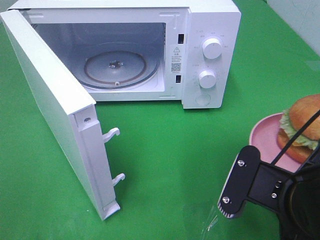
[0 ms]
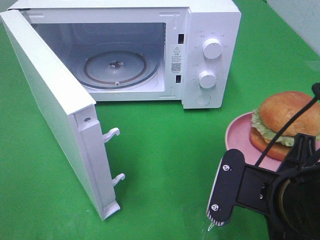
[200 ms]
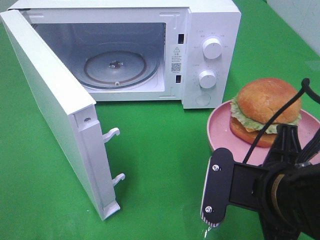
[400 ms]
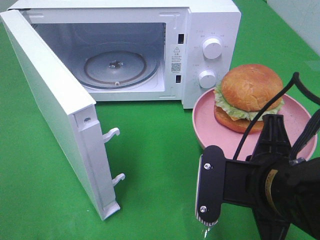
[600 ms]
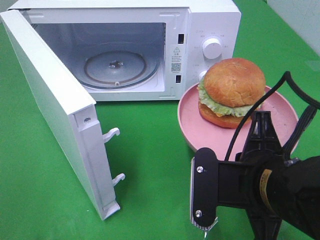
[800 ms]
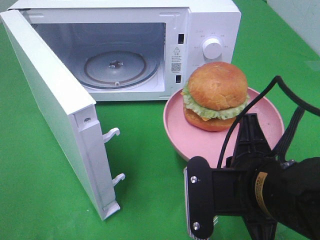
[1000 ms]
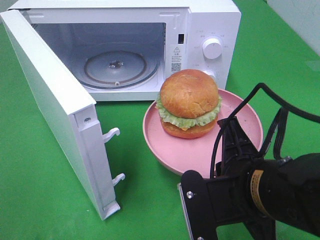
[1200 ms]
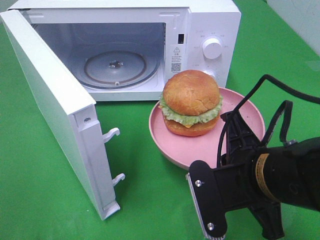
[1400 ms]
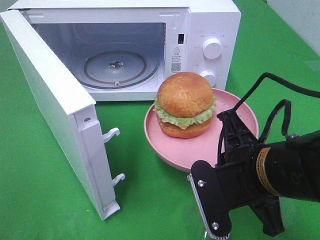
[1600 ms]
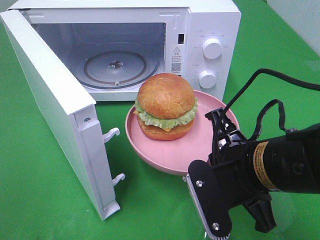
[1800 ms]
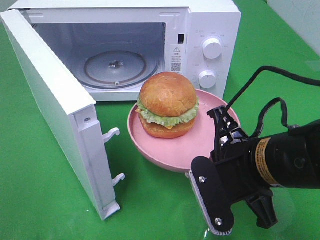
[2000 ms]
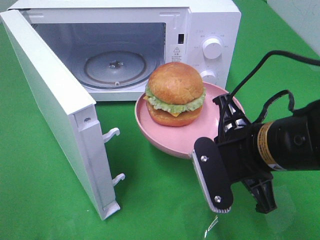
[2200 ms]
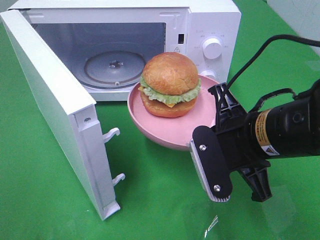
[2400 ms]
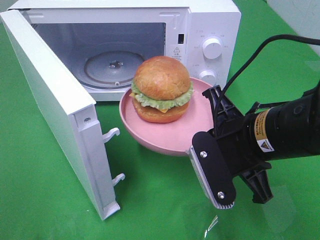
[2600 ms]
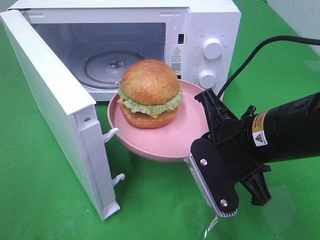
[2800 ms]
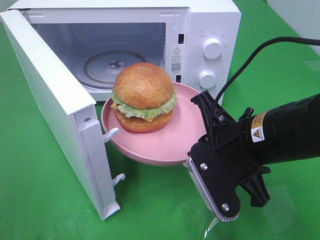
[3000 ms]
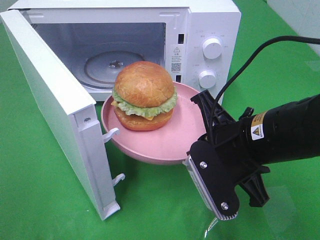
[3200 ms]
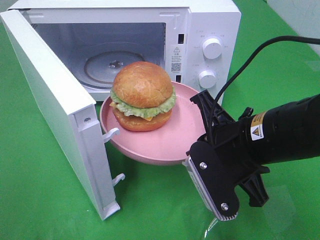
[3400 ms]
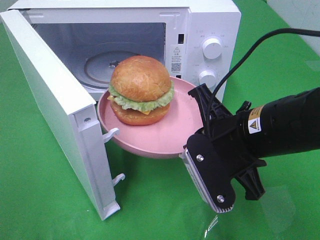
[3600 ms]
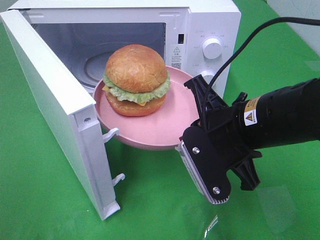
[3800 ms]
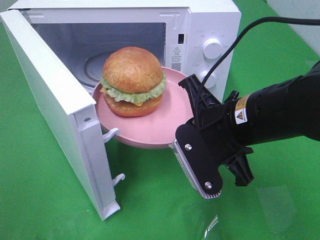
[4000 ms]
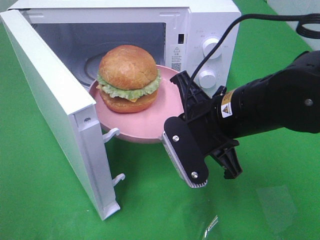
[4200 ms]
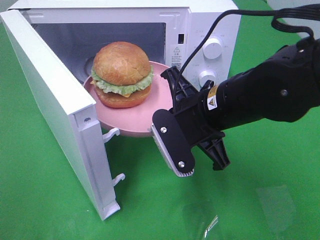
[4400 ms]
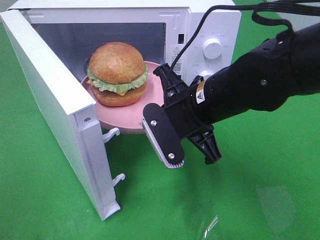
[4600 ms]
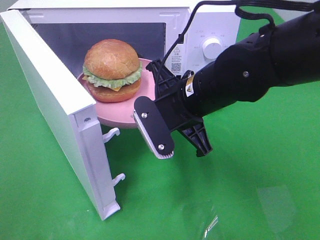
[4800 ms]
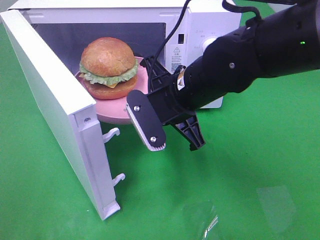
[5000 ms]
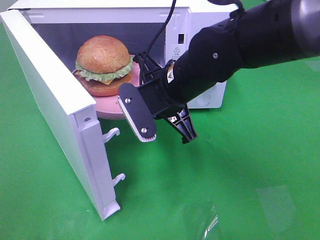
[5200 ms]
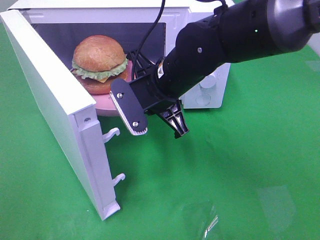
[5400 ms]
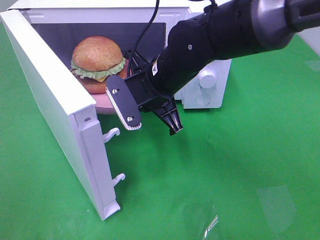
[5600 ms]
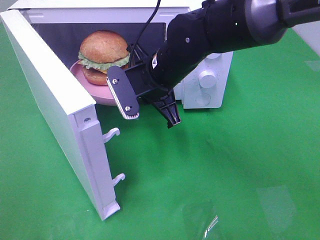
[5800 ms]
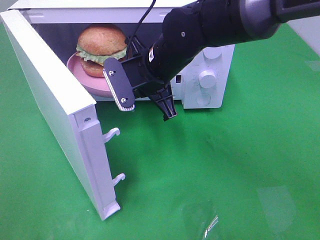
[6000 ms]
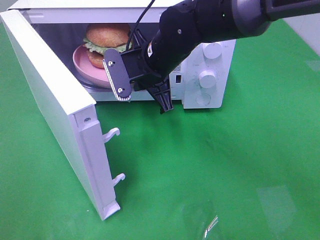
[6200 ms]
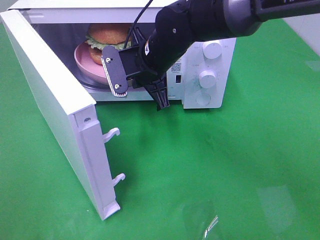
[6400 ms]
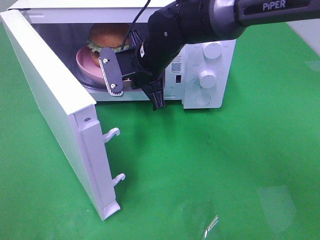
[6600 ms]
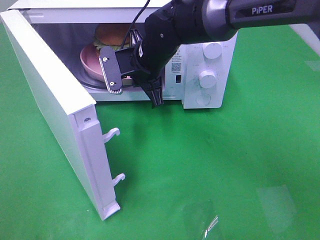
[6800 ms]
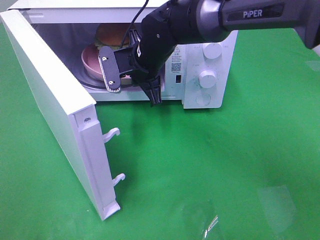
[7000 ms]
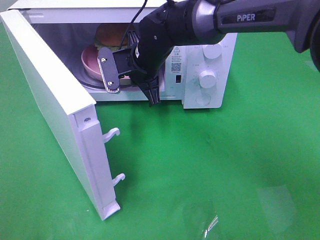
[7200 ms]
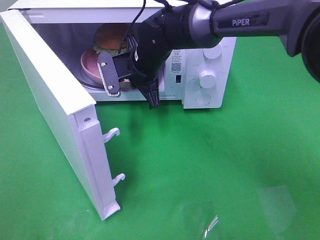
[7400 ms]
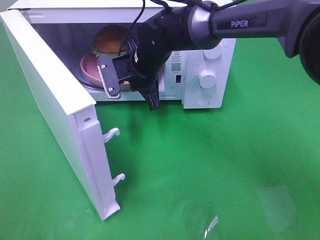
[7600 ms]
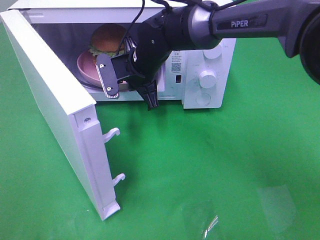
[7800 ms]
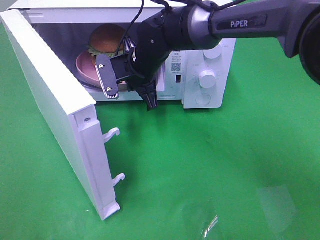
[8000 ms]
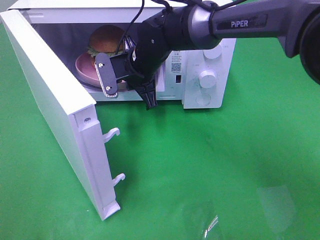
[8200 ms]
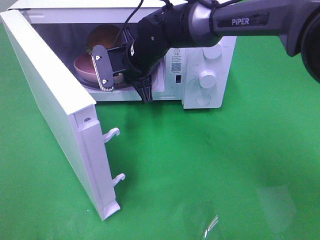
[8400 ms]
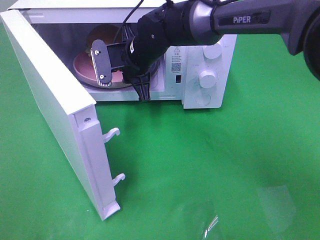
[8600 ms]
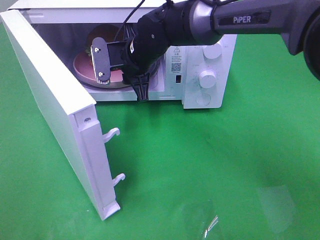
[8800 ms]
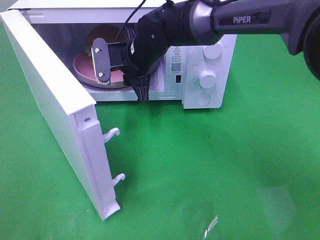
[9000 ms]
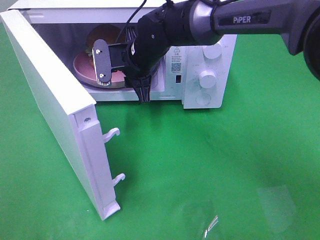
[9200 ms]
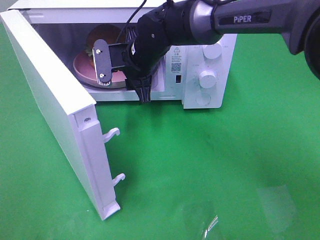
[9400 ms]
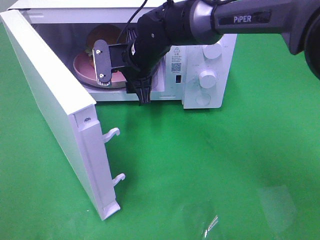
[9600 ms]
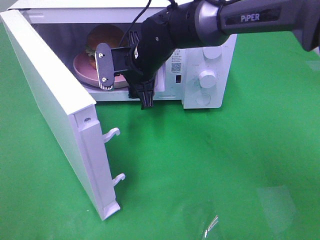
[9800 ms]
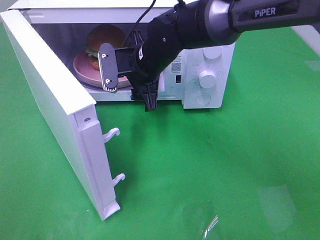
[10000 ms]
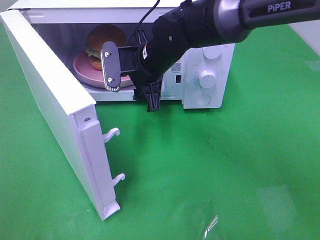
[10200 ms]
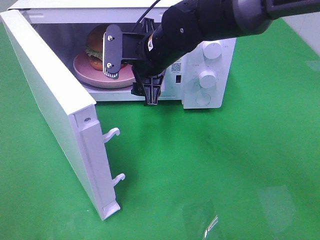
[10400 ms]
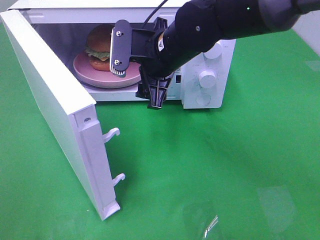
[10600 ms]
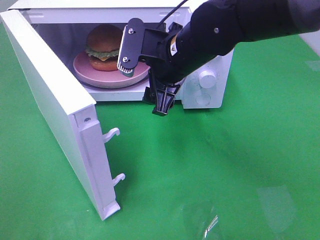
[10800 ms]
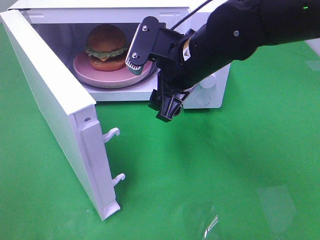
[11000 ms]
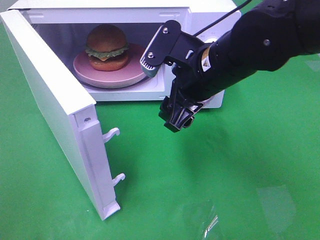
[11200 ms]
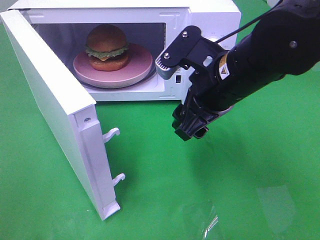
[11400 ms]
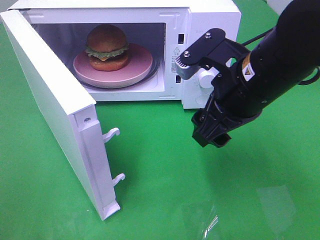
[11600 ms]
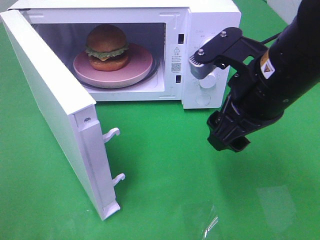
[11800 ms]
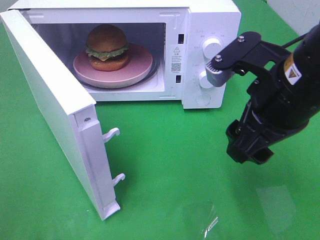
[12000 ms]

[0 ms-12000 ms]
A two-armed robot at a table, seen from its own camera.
Task of the whole recording: Heat the burger.
Step, 0 ms to 8400 ms: Right hand: place the plate in the microwave.
3000 ms to 4400 ms: The right gripper moves roughly 5 cm.
4400 ms to 6000 ms: The right gripper goes some 15 cm forward and to the left.
6000 ms to 7600 ms: The right gripper travels forward by some 5 cm.
7600 ms to 9000 ms: The right gripper opens up.
9000 ms to 10400 ms: The right gripper ends up some 5 cm from where it was, and opens its fingers.
10400 ms to 12000 ms: The right gripper heads backward and to the right, covering some 20 cm.

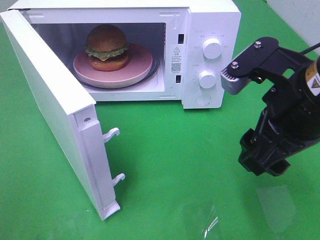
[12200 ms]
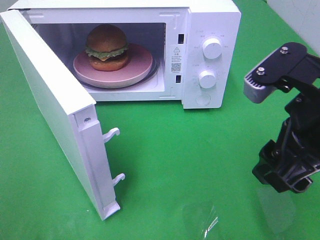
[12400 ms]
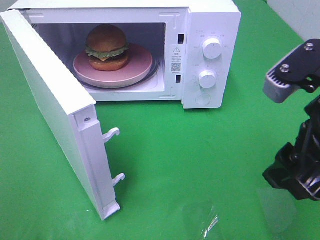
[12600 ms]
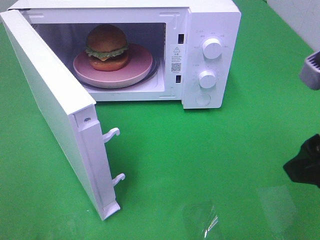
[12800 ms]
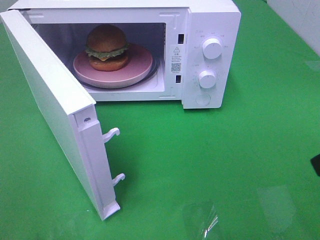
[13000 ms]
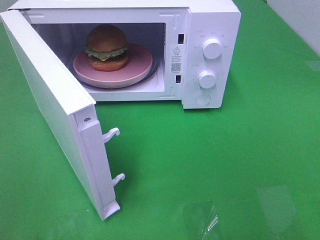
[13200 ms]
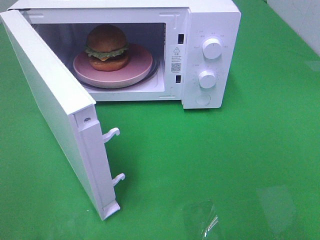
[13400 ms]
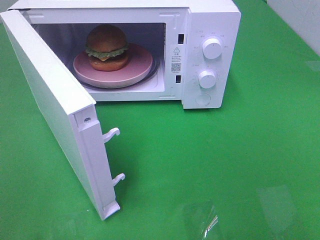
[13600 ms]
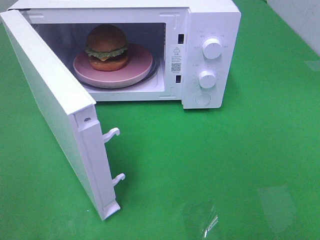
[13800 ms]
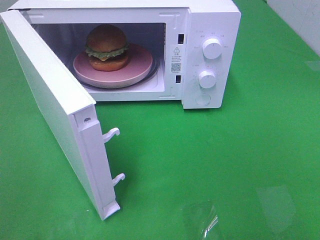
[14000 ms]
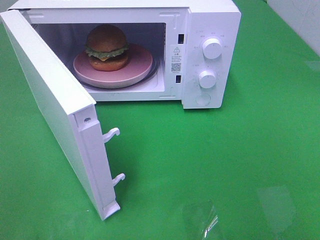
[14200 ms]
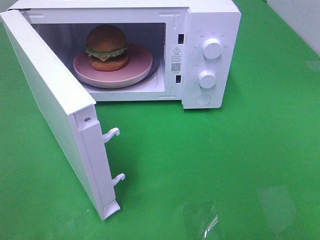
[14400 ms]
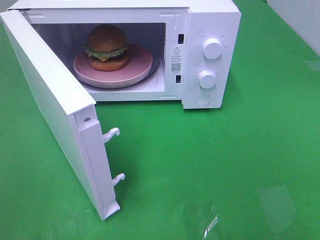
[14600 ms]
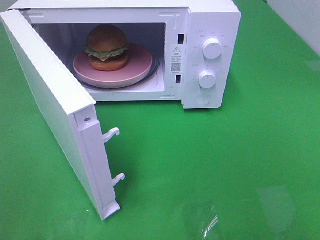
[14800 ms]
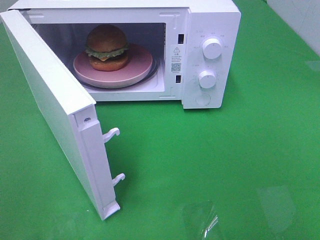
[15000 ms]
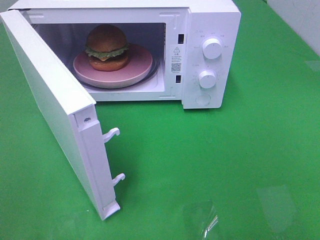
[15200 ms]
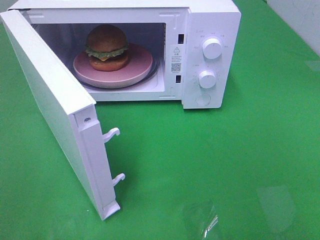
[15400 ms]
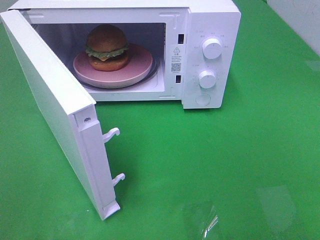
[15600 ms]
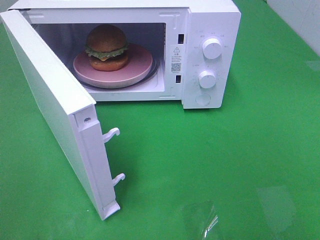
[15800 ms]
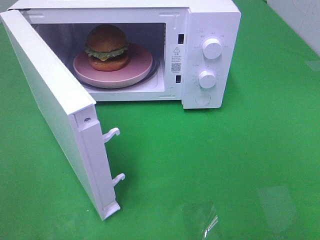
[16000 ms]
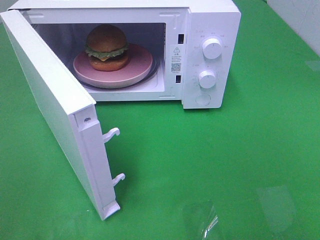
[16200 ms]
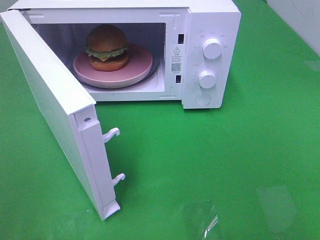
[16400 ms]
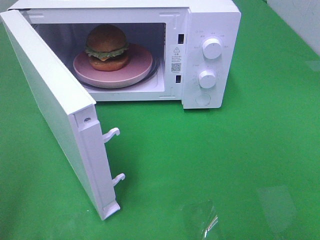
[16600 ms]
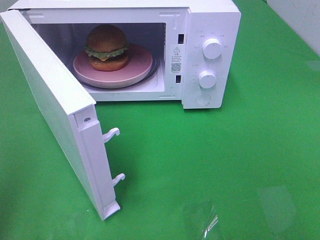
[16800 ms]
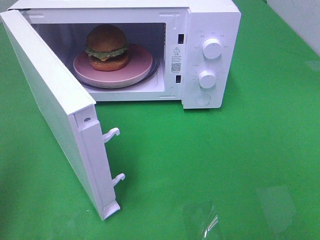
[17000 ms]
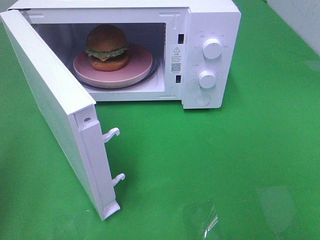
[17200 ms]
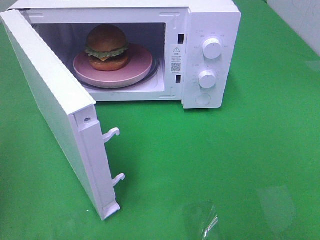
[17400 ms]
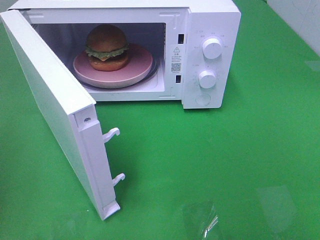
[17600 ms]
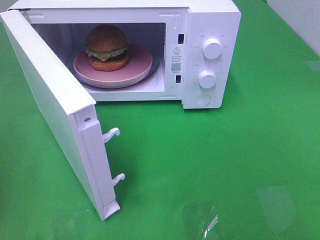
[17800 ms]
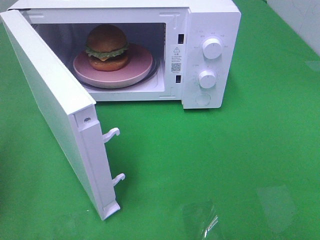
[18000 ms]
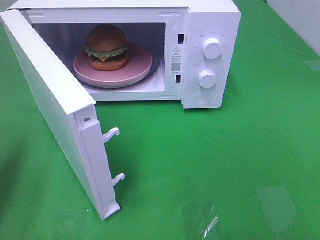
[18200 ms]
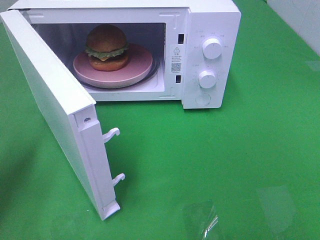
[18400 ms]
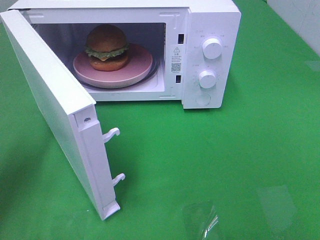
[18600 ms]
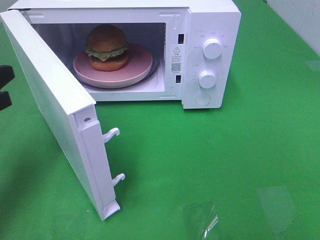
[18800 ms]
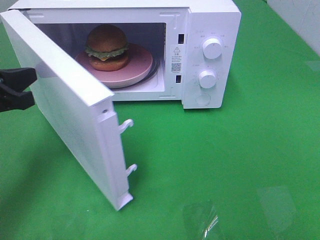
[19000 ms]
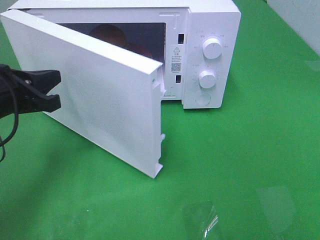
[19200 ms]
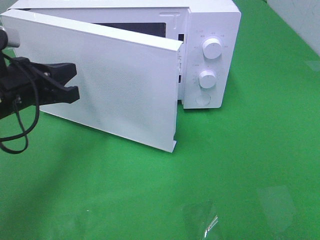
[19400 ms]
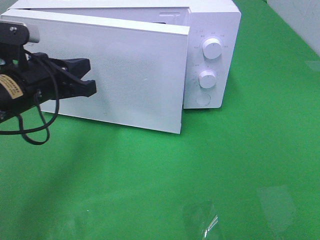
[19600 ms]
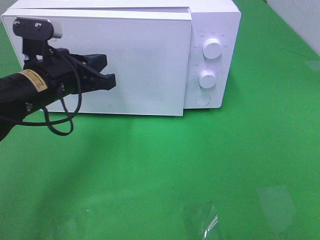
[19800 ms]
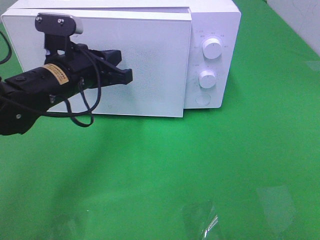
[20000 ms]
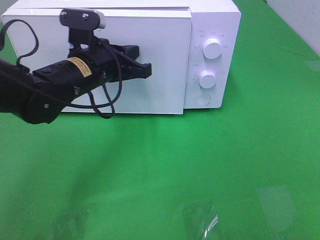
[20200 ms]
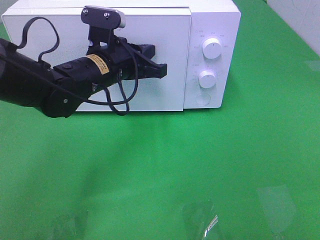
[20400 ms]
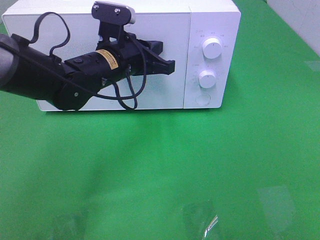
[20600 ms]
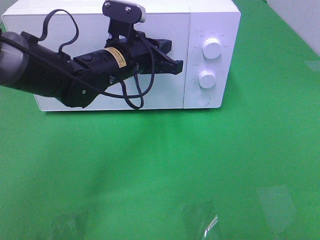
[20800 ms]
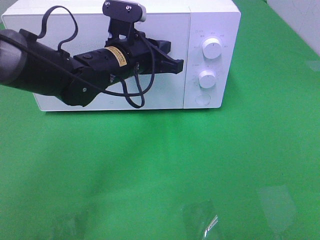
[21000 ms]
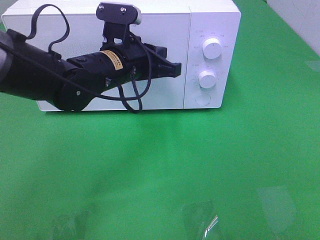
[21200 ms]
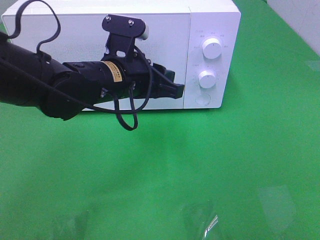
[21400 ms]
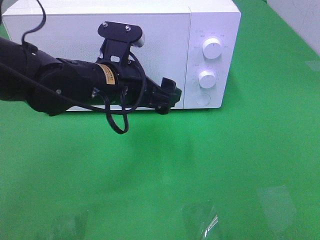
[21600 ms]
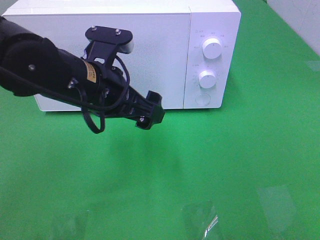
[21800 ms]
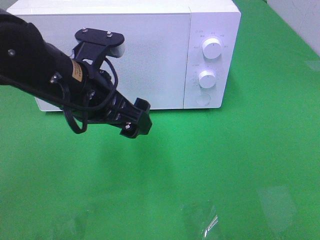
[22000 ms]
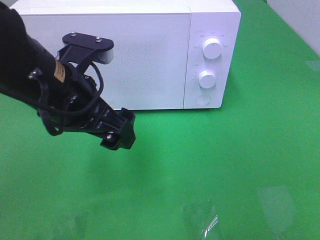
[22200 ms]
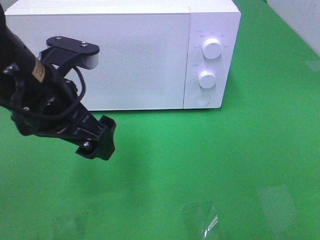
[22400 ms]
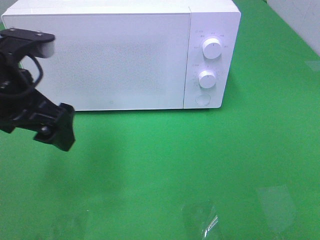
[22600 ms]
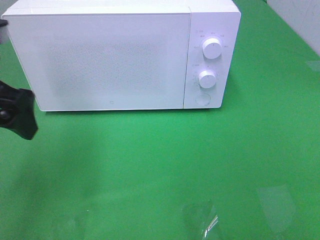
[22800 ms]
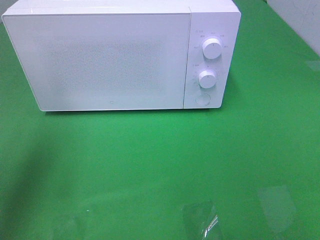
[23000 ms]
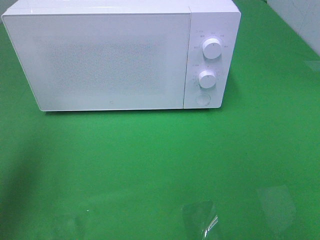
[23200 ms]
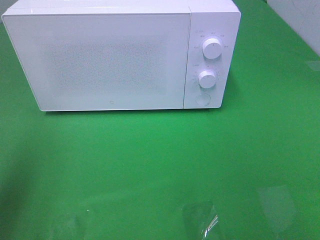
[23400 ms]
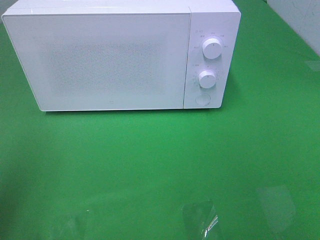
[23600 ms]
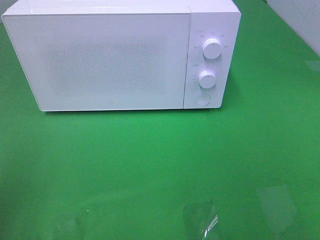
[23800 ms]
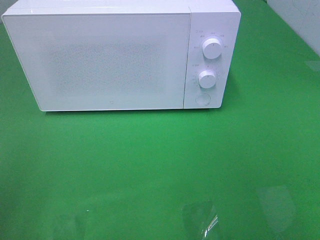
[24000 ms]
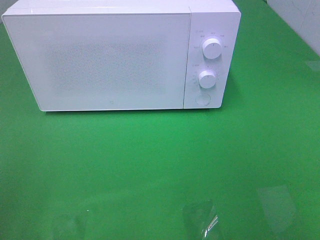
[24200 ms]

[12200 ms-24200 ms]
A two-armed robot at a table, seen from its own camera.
Task of the whole recording: Heat the burger.
Step, 12200 ms to 20400 ms: Left hand: close the microwave door.
12200 ms to 13800 ms: The right gripper shifts some 20 cm backward and to the right.
16600 ms to 18200 ms: The left gripper moves forward and downward, some 15 cm.
18200 ms to 19800 ms: The left gripper goes about 20 cm to the right and forward.
19800 ms to 21200 ms: The left gripper travels to the right by some 10 cm.
21200 ms to 22600 ms: The left gripper moves to the left, backward and upward, roughly 20 cm, and opens its fingers.
22600 ms to 24200 ms: The left gripper shifts about 20 cm backward and to the left.
